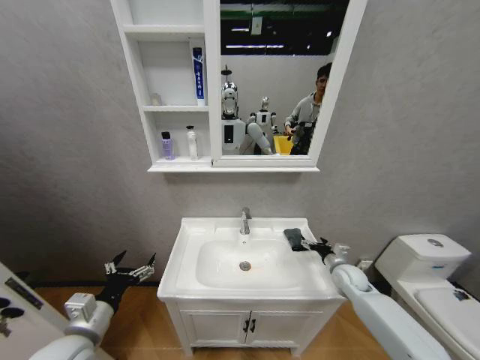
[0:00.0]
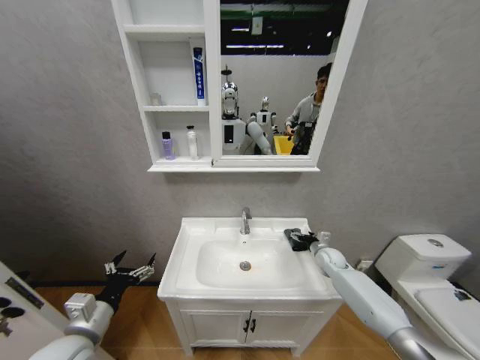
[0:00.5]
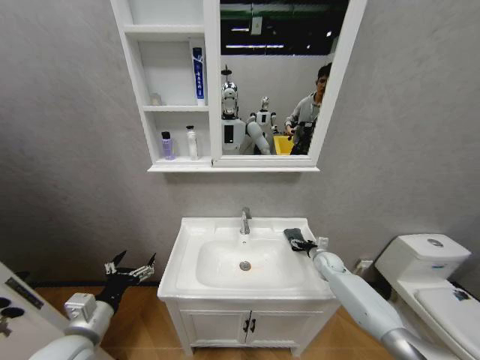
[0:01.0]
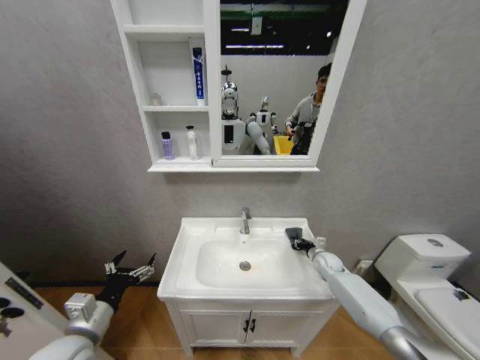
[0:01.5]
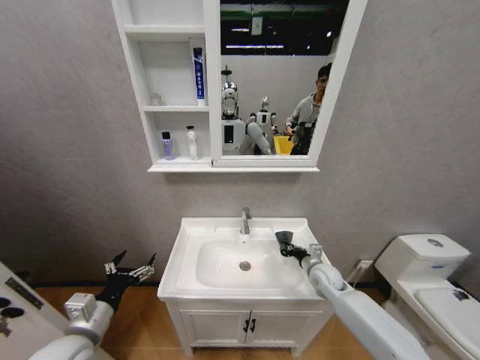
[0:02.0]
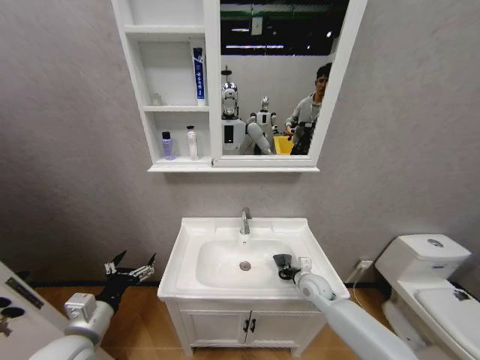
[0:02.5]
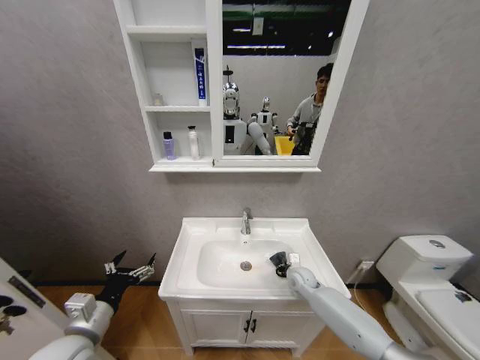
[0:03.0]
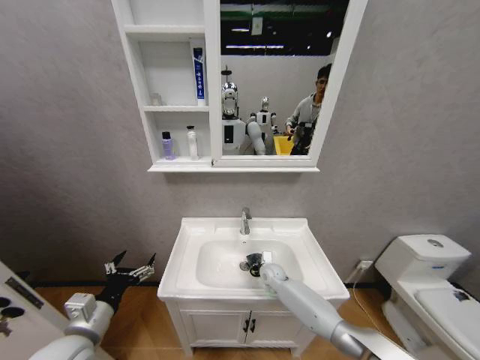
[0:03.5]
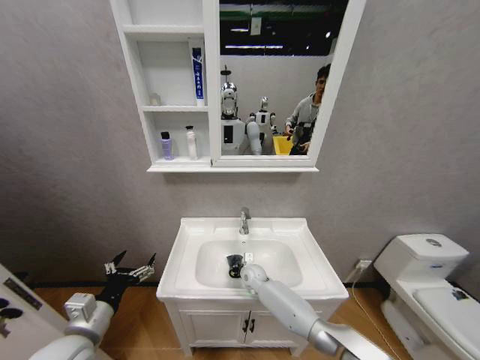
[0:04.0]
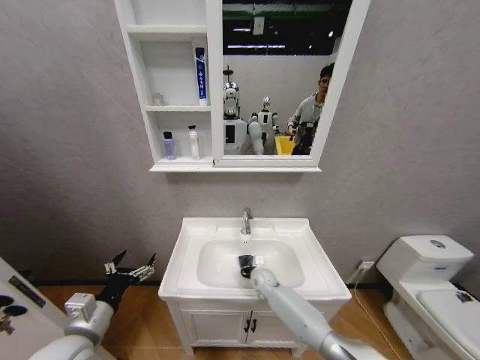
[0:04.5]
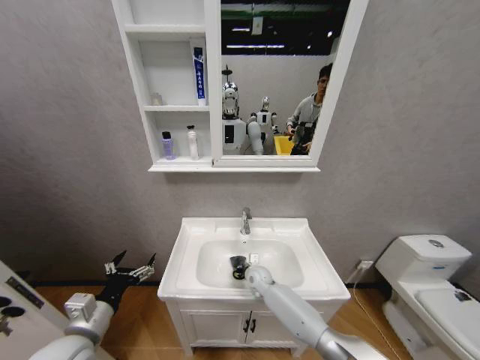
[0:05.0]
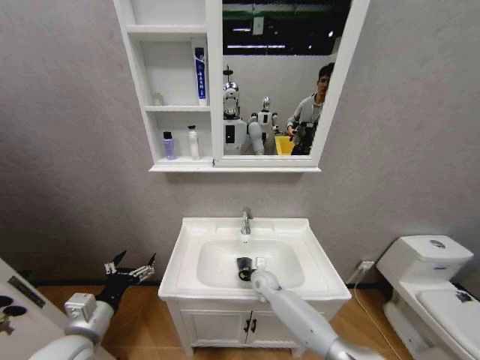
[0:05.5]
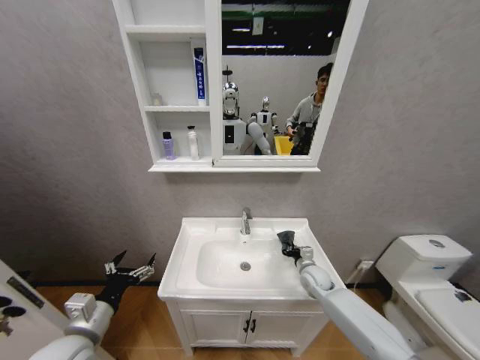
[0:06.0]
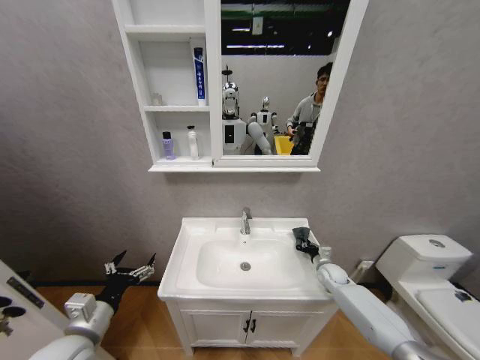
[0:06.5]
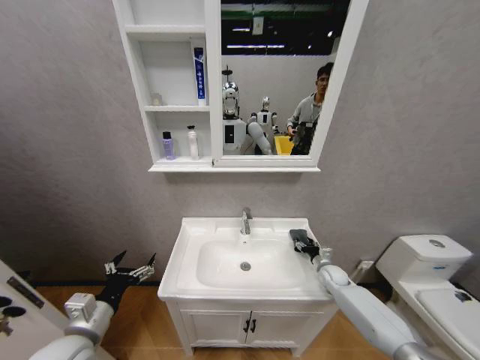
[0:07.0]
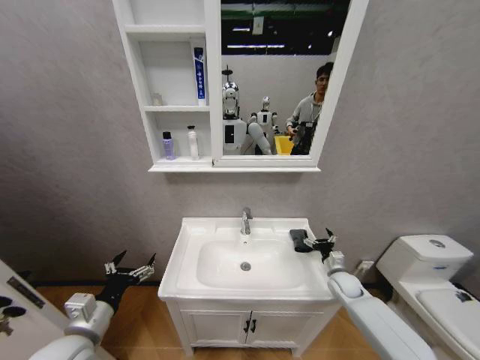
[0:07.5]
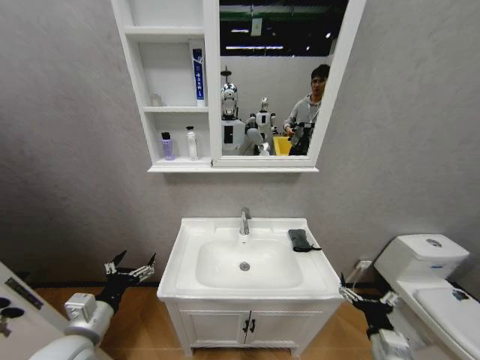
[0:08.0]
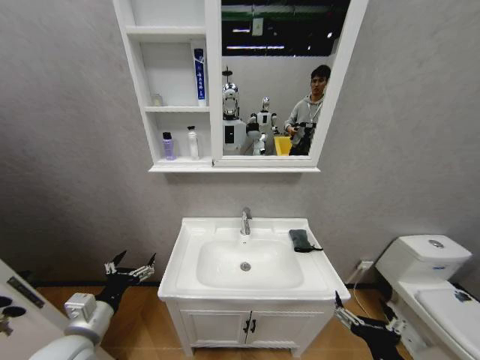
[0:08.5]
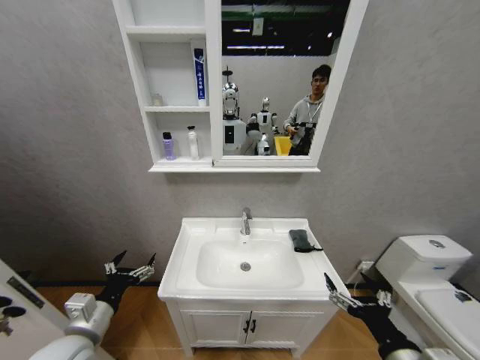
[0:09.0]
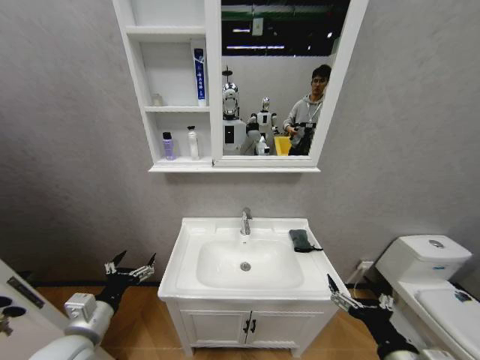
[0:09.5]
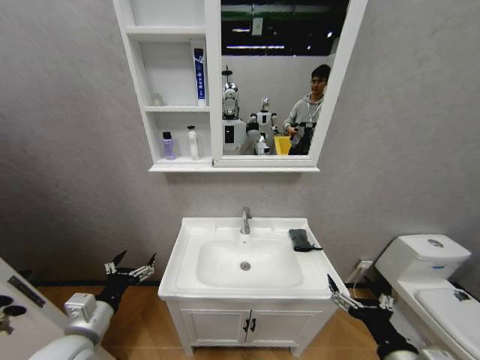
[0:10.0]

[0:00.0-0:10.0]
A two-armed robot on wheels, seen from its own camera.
Task of the whole recording: Move facial cleanser and shampoo from washbasin to cabinet, then wipe washbasin with towel.
0:00.0 to 0:02.0: The right gripper goes roughly 10 cm to the left, and closes up.
0:02.0 to 0:04.0: The right gripper goes about 25 cm to the left and downward.
0:04.0 to 0:06.0: The right gripper goes left and right, approximately 20 cm each way, reversing 2 times.
0:06.0 to 0:08.0: The right gripper travels backward by about 30 cm, and opens its fingers.
0:08.0 to 0:10.0: The right gripper goes roughly 10 cm upward.

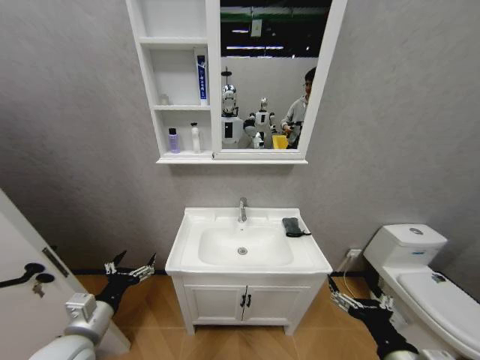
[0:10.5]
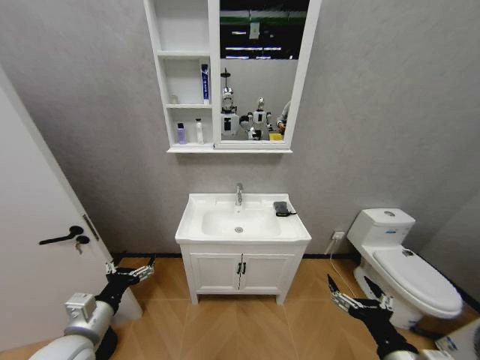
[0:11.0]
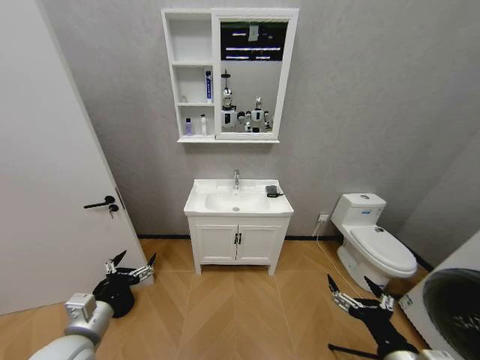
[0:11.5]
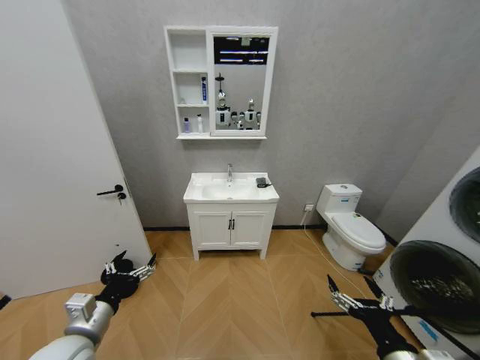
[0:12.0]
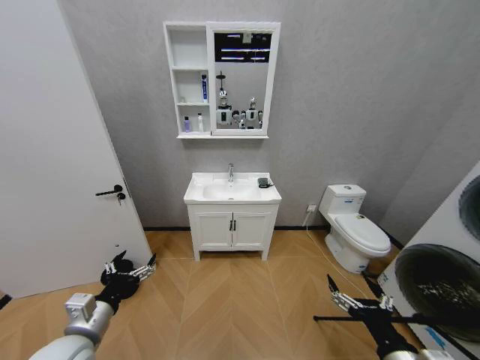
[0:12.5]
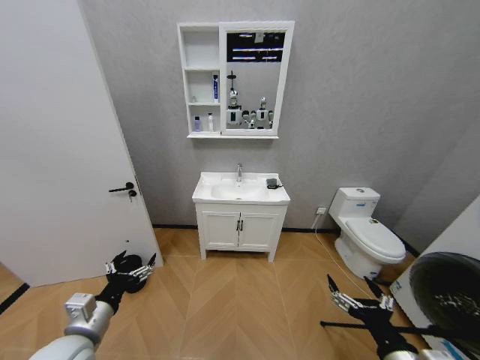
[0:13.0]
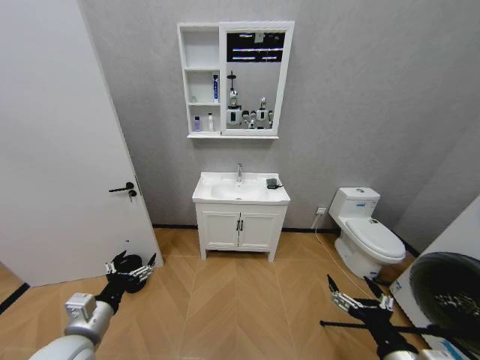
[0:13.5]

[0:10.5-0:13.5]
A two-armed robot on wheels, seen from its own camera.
Task of the whole recording: Move facial cleanser and shampoo from washbasin to cabinet, then wipe washbasin with towel.
0:12.0 to 0:13.5: The two grippers keep their place.
